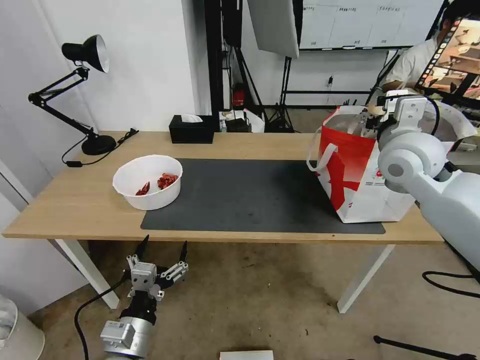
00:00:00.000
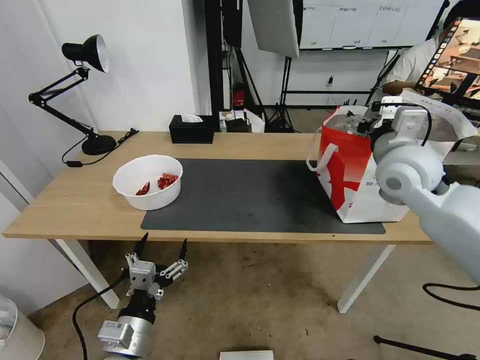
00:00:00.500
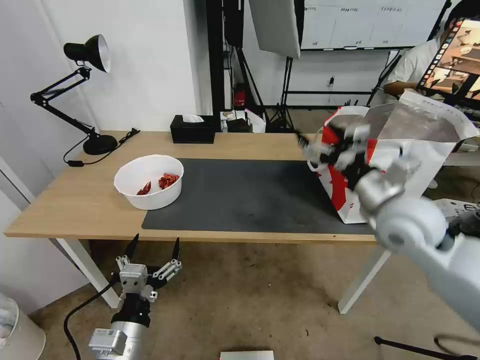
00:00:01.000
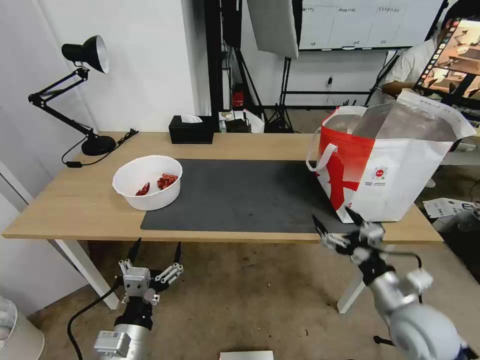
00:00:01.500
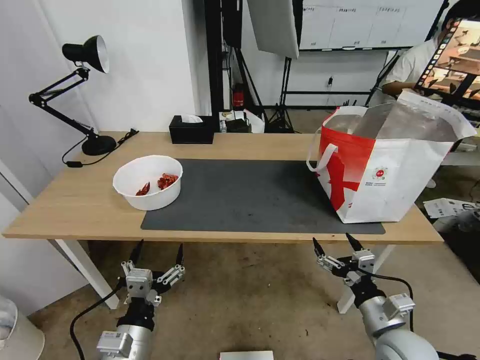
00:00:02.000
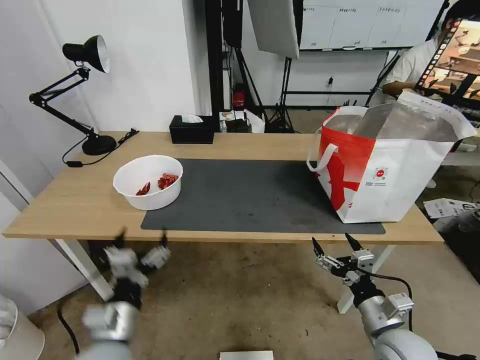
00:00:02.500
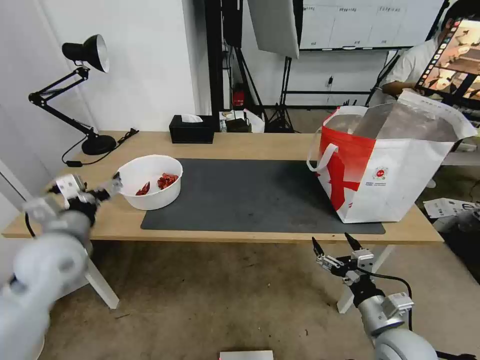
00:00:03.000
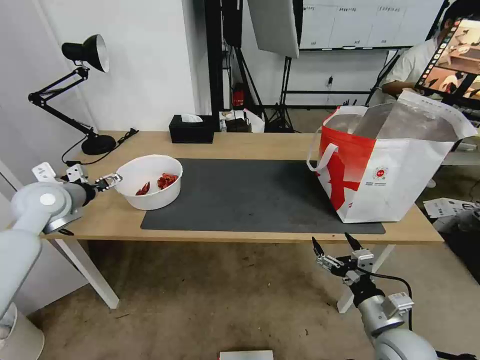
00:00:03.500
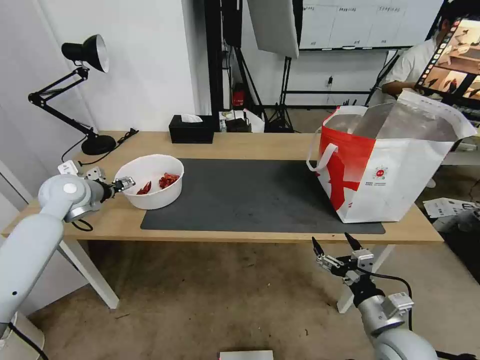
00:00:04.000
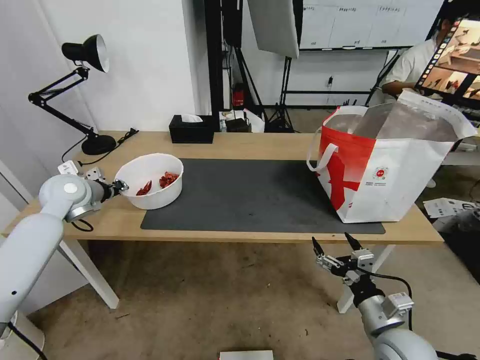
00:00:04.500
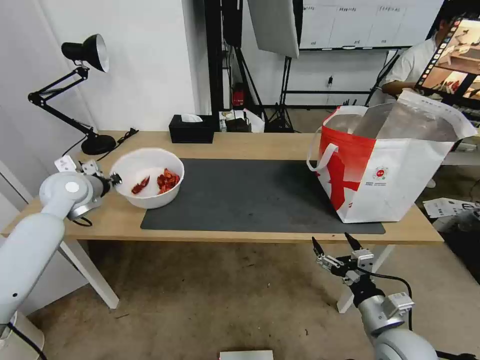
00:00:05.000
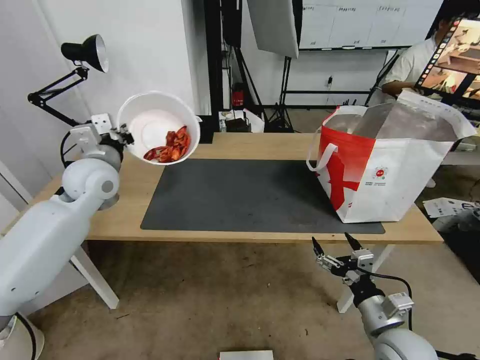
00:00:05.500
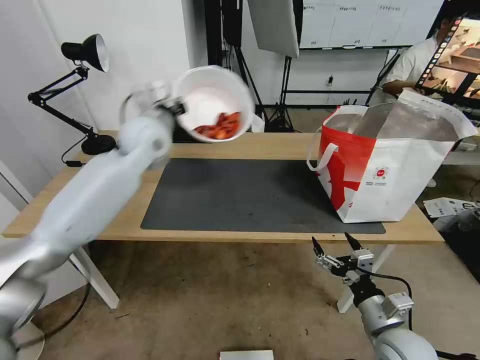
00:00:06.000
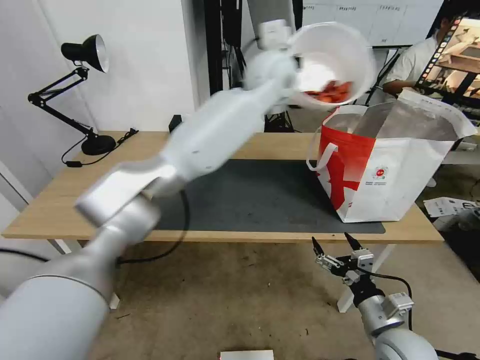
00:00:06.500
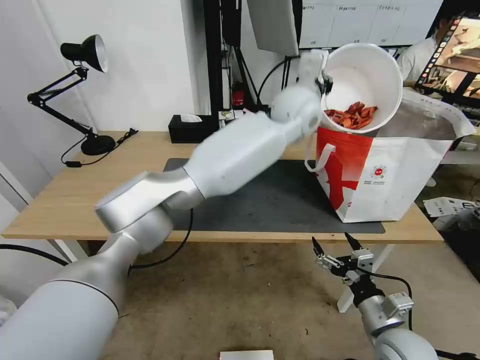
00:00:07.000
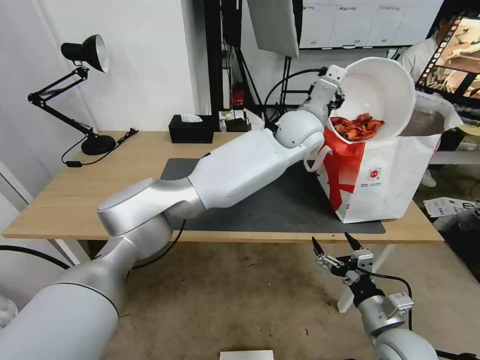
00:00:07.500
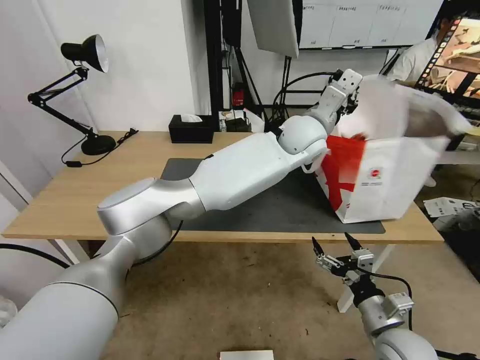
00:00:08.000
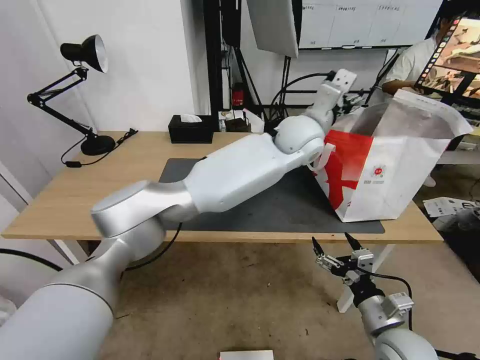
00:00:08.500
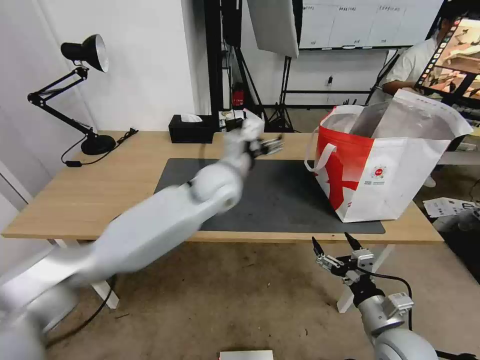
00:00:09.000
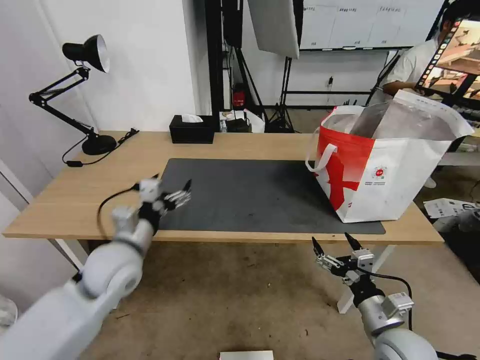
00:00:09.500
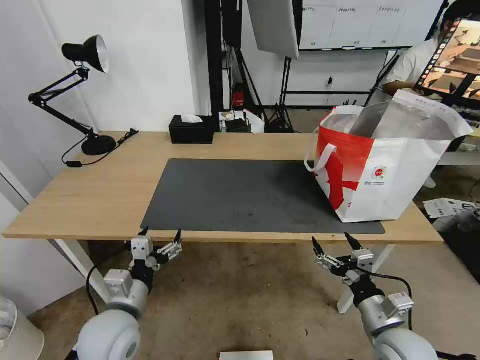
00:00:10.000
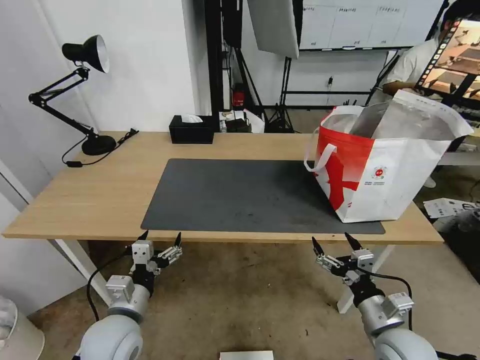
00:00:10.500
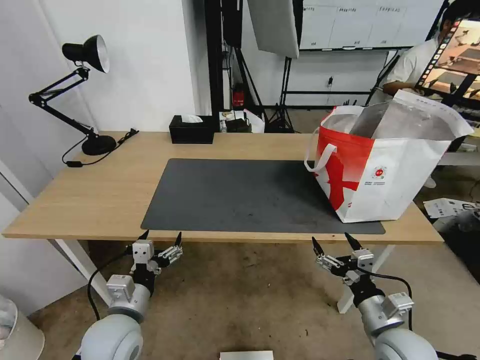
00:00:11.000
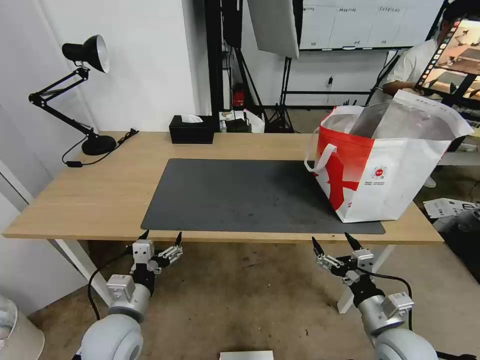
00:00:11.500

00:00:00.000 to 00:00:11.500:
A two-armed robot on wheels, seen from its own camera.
Task of the whole recording: Pick up the trash from the table and place it into the takeout bag.
00:00:00.000 to 00:00:02.000: The right gripper travels downward and backward by about 40 cm.
00:00:02.000 to 00:00:04.000: The left gripper moves forward, to the left and upward, about 40 cm.
00:00:04.000 to 00:00:06.000: The left gripper travels to the right and upward by about 25 cm, and closes its fingers.
00:00:06.000 to 00:00:07.500: The left gripper goes approximately 30 cm to the right.
00:00:07.500 to 00:00:09.500: The left gripper travels to the left, backward and downward by some 50 cm, and opens up.
00:00:09.500 to 00:00:11.500: The left gripper is displaced backward and downward by approximately 15 cm.

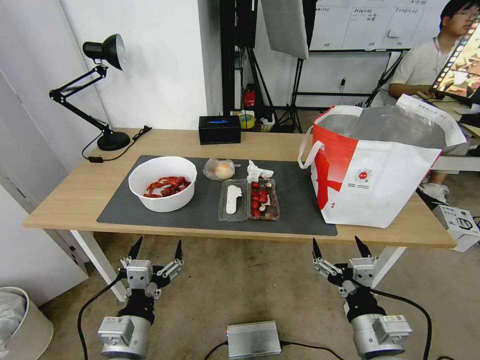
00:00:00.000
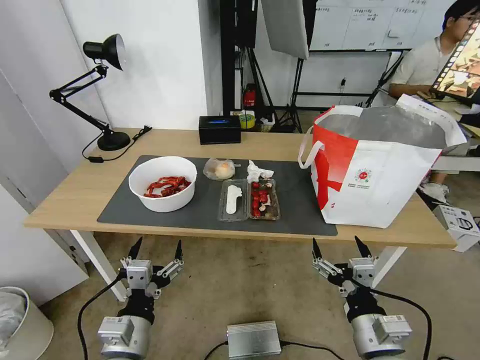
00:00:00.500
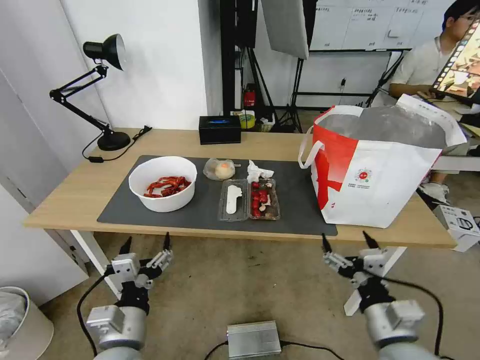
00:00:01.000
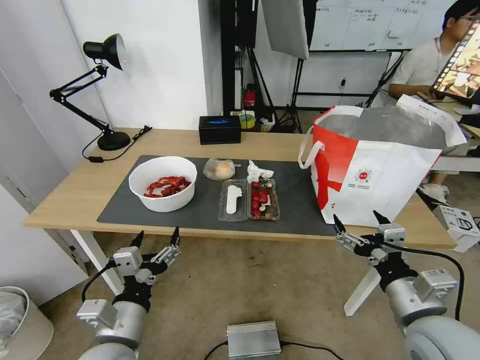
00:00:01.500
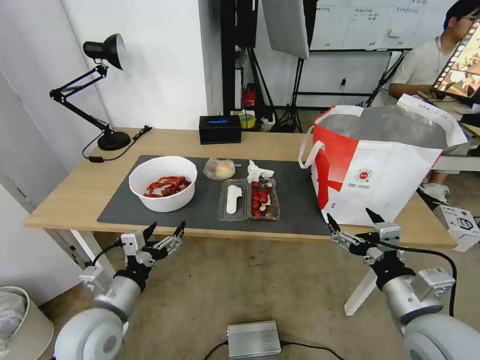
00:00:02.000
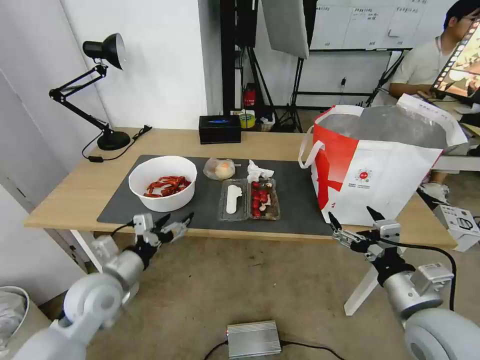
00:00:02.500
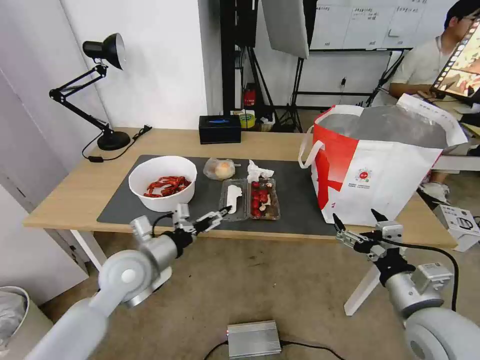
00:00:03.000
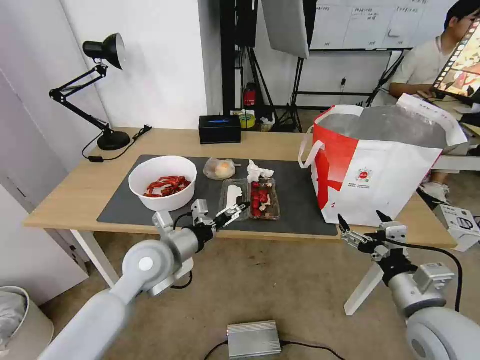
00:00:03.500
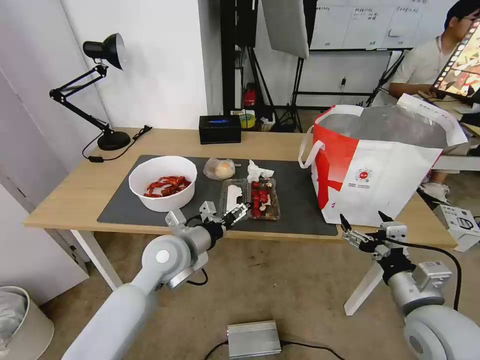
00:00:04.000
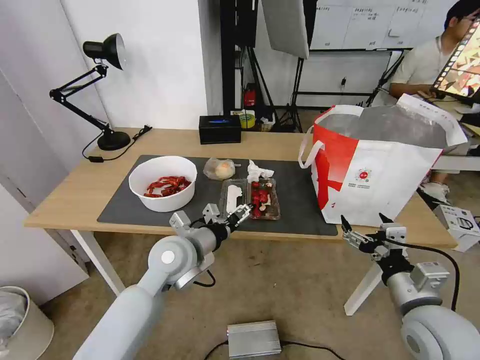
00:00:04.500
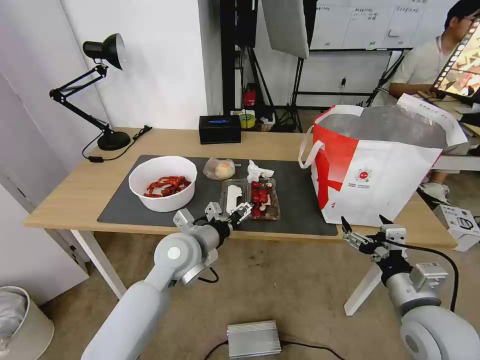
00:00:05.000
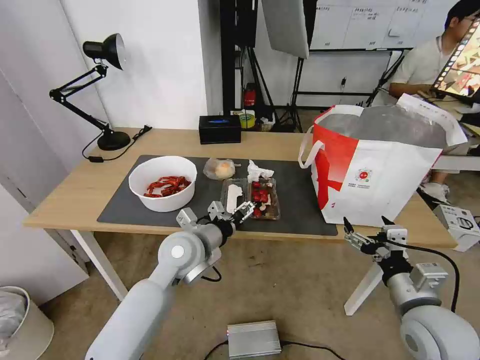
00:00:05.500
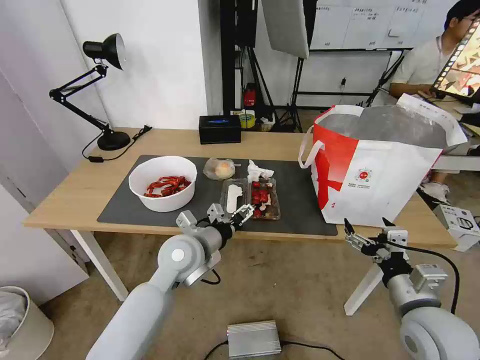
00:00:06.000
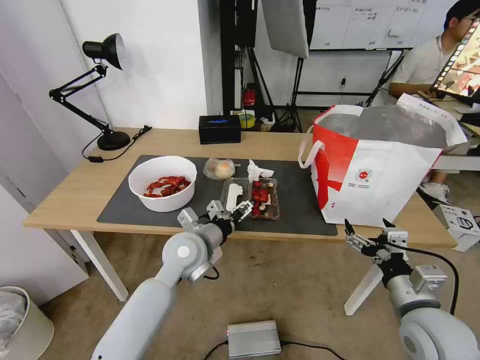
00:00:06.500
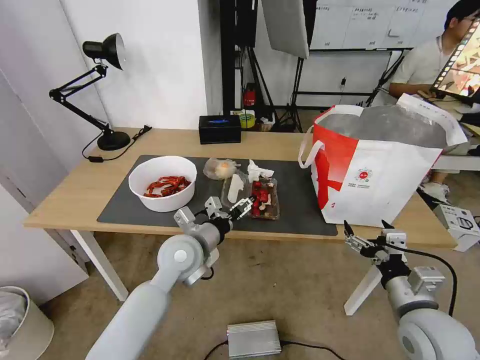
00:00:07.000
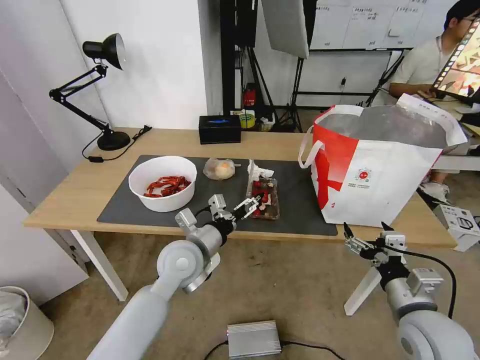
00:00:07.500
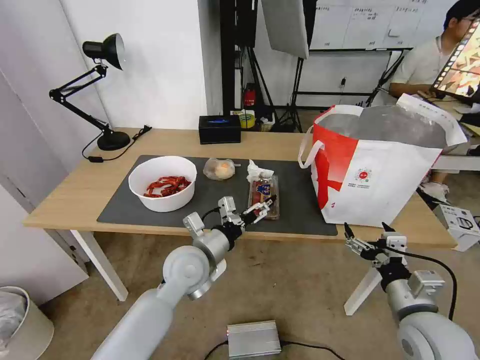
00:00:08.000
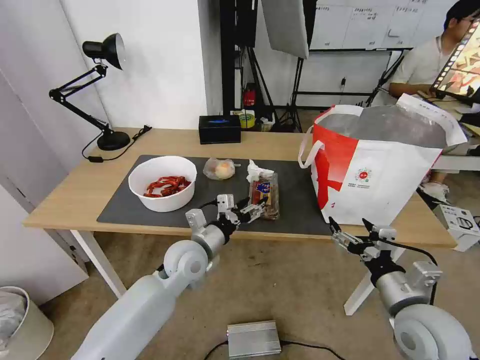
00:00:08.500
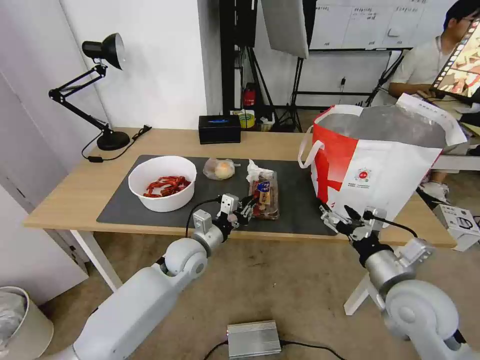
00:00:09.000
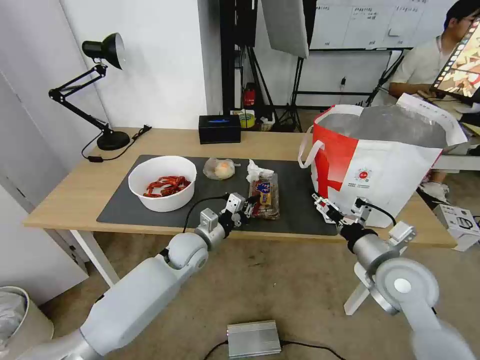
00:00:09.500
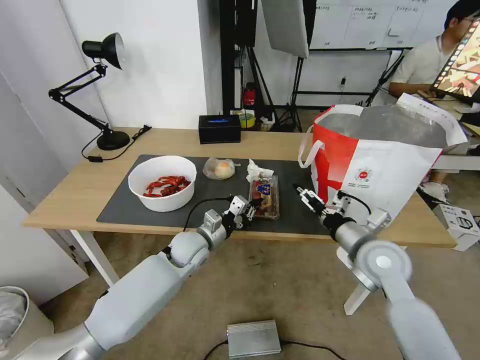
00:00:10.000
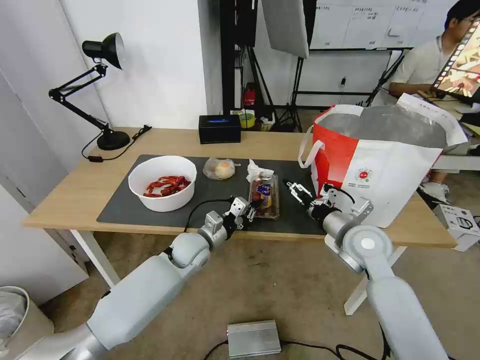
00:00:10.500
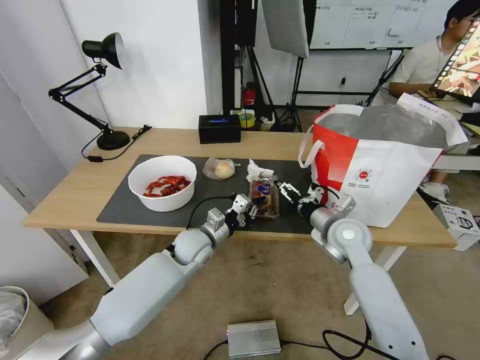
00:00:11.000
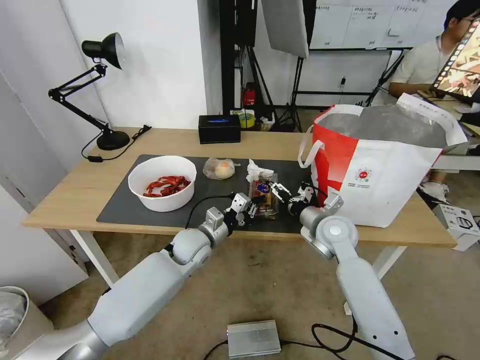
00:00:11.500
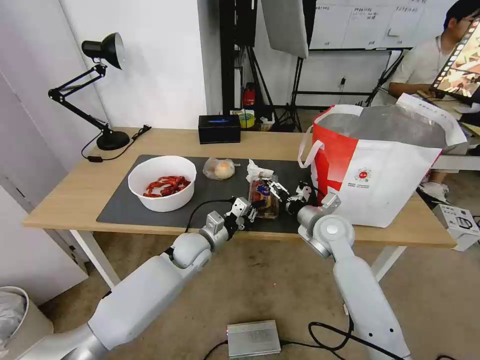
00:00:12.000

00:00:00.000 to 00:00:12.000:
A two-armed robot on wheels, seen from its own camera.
Task of the whole recording: Pick up the trash from the table and place it into the takeout bag.
00:00:02.000 to 00:00:04.000: The left gripper heads forward and to the right, covering roughly 15 cm.
00:00:04.000 to 00:00:06.000: There are only small adjustments of the grippers.
00:00:08.000 to 00:00:10.000: The right gripper heads forward, covering roughly 15 cm; the left gripper is displaced forward and downward by some 10 cm, and closes.
00:00:10.000 to 00:00:12.000: The right gripper shifts approximately 10 cm forward and to the left.

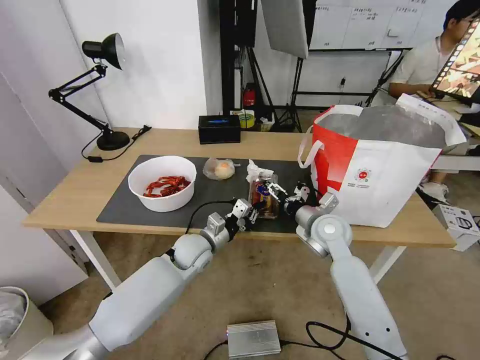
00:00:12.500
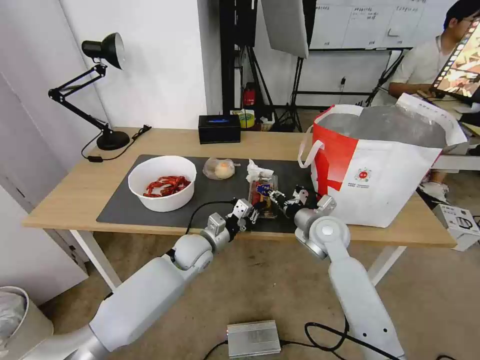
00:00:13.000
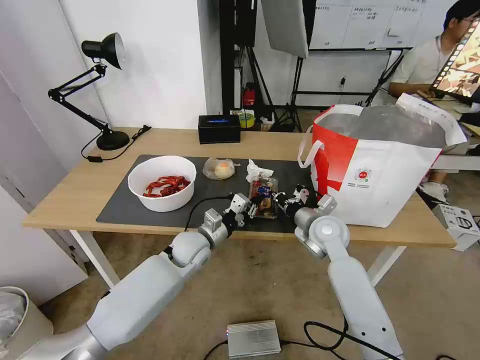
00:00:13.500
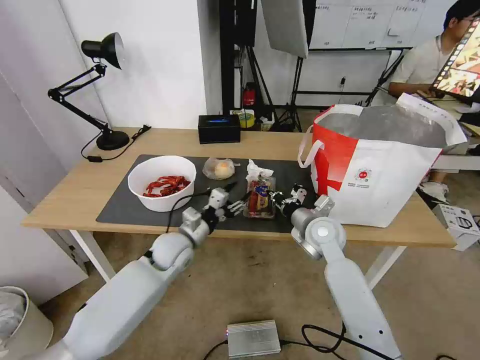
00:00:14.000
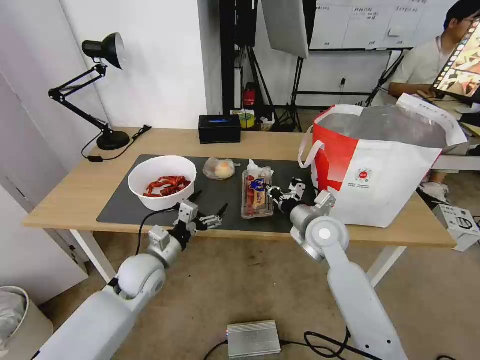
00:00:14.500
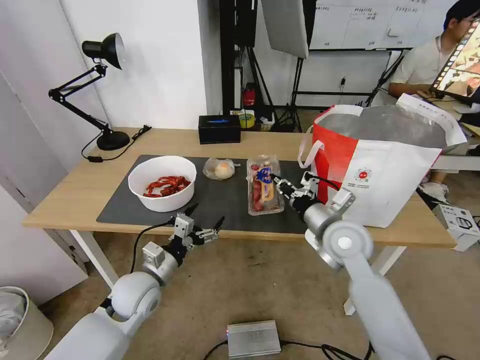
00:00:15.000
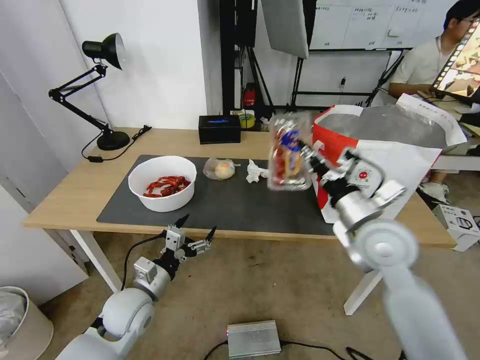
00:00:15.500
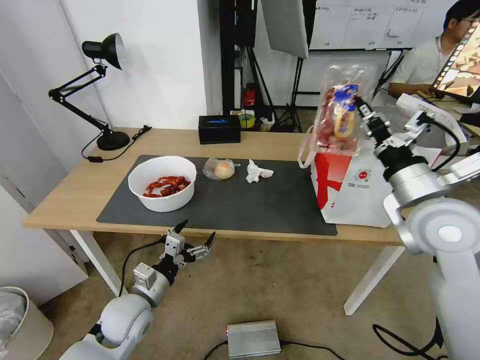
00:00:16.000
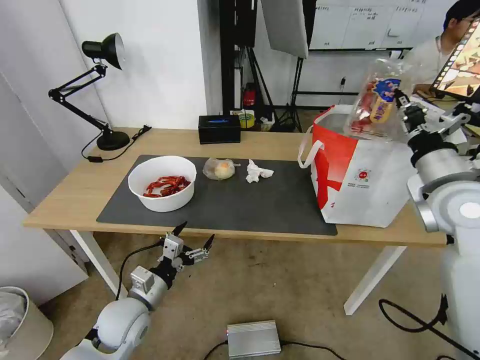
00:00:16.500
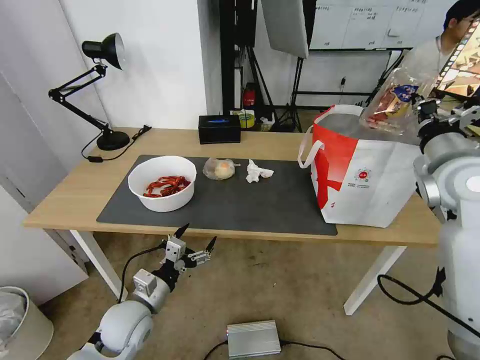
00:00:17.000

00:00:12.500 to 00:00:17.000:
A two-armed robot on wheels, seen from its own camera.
Task of the whole recording: Pick up the trash from the table and place it into the takeout bag.
00:00:12.500 to 00:00:14.500: The left gripper heads to the left and backward, covering about 10 cm, and opens its fingers. Meanwhile the right gripper closes up.
00:00:14.500 to 00:00:17.000: The right gripper travels upward and to the right by some 25 cm; the left gripper is displaced backward by approximately 10 cm.
